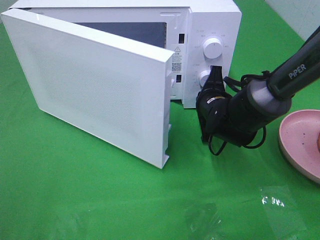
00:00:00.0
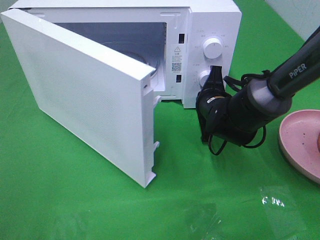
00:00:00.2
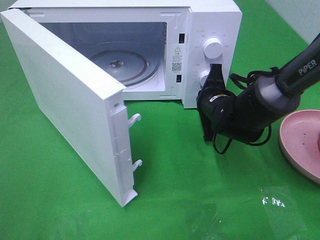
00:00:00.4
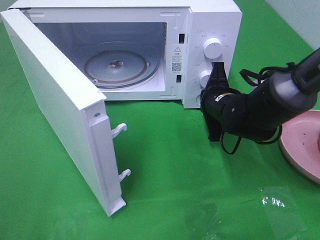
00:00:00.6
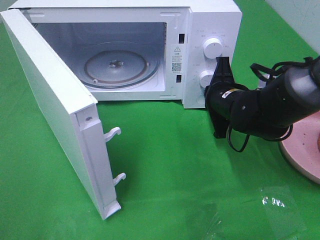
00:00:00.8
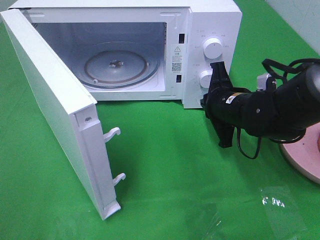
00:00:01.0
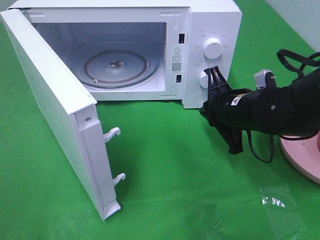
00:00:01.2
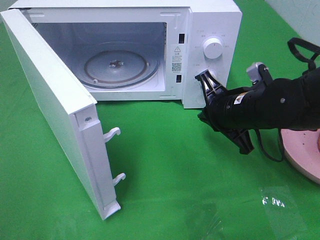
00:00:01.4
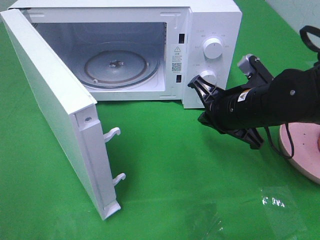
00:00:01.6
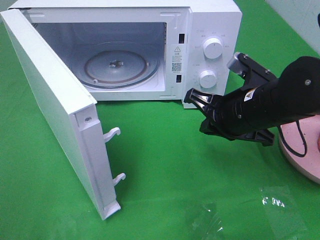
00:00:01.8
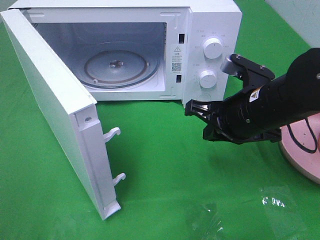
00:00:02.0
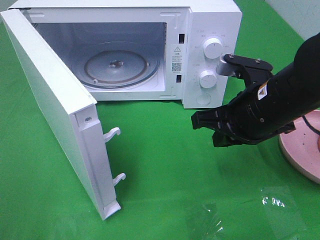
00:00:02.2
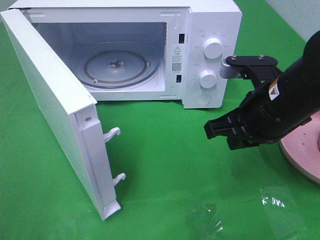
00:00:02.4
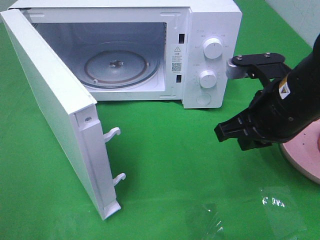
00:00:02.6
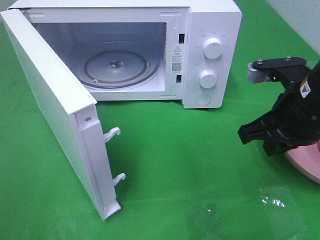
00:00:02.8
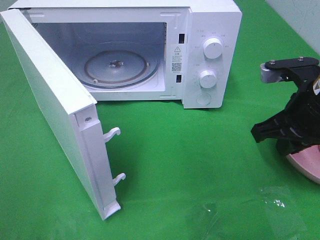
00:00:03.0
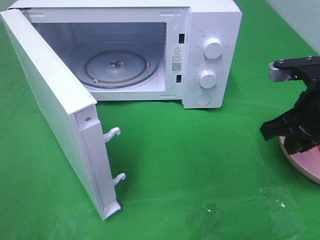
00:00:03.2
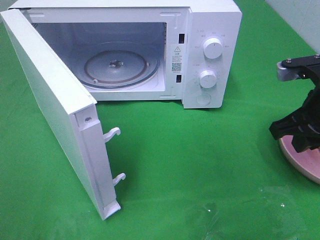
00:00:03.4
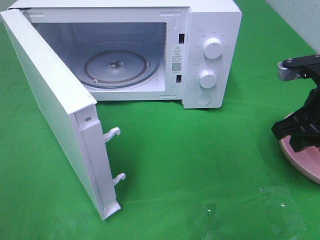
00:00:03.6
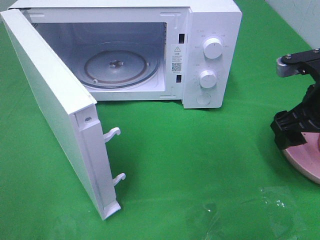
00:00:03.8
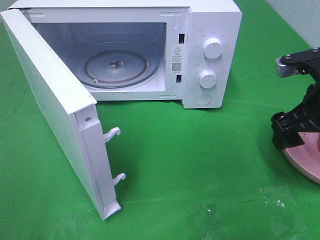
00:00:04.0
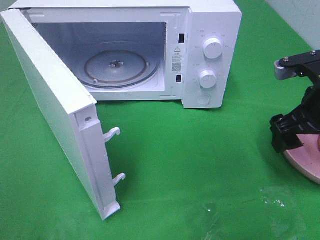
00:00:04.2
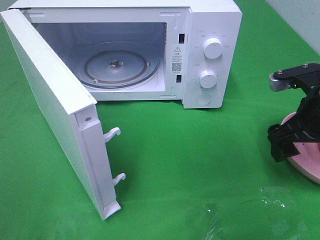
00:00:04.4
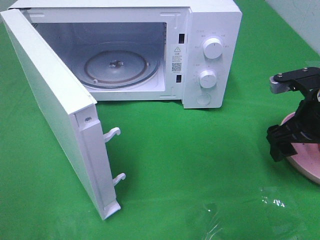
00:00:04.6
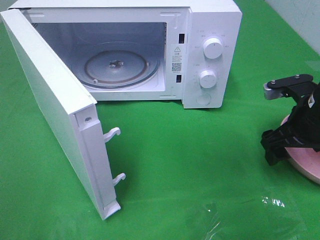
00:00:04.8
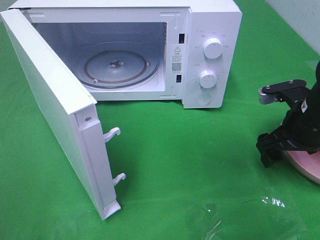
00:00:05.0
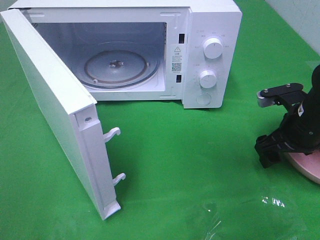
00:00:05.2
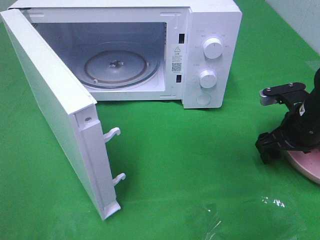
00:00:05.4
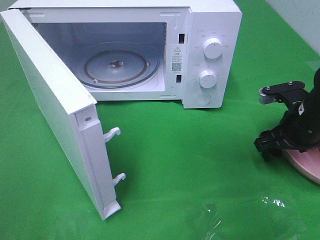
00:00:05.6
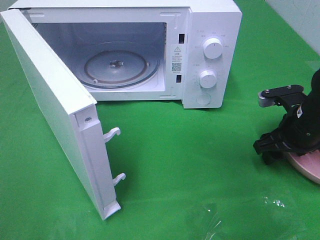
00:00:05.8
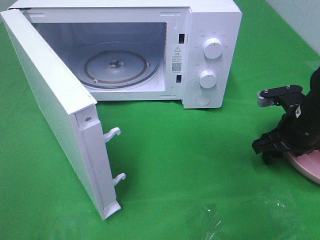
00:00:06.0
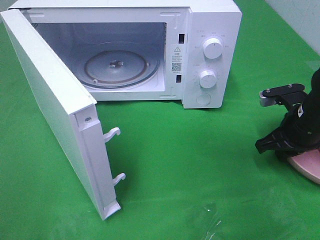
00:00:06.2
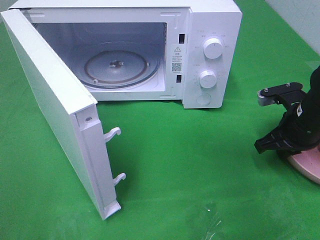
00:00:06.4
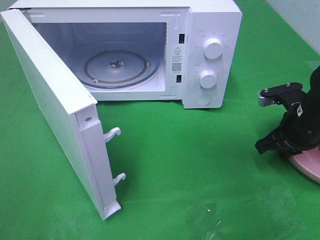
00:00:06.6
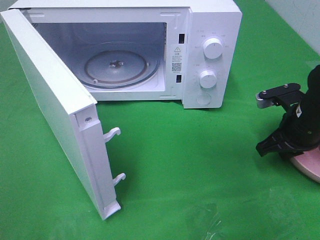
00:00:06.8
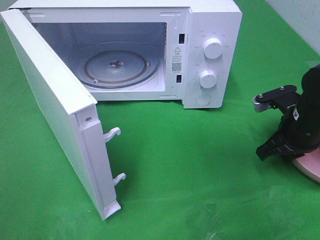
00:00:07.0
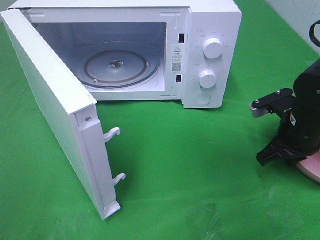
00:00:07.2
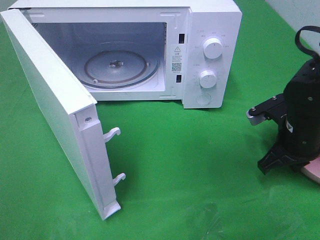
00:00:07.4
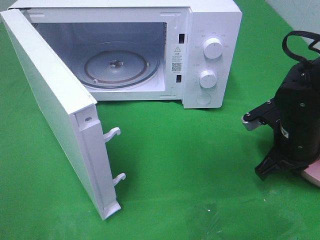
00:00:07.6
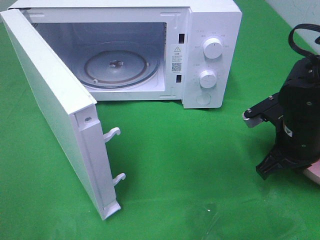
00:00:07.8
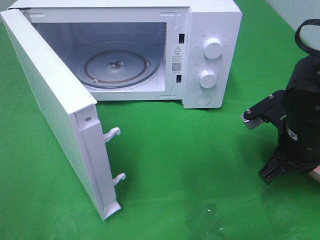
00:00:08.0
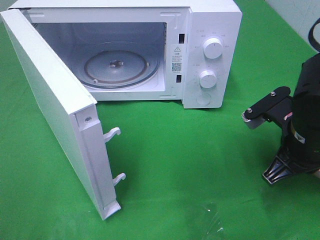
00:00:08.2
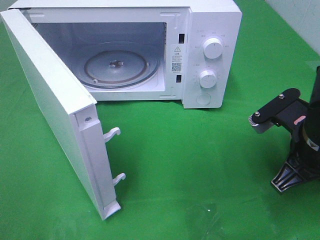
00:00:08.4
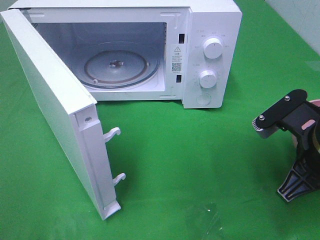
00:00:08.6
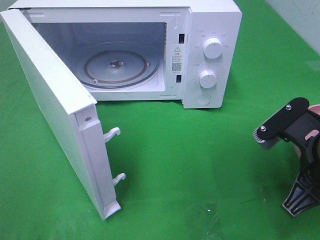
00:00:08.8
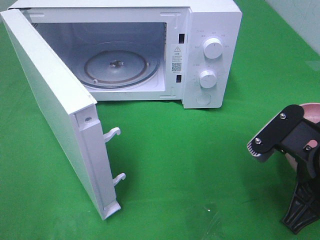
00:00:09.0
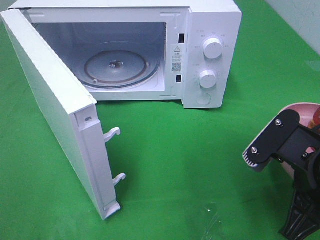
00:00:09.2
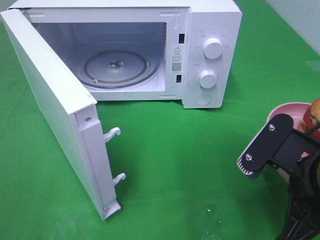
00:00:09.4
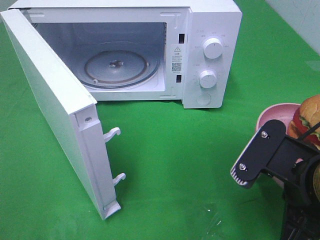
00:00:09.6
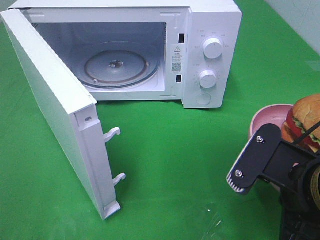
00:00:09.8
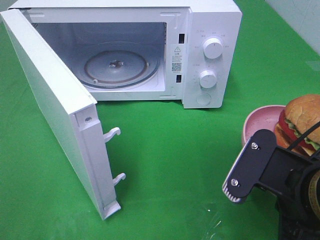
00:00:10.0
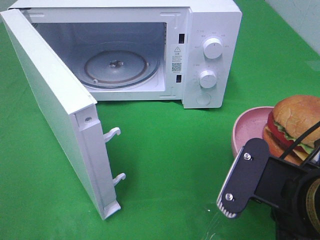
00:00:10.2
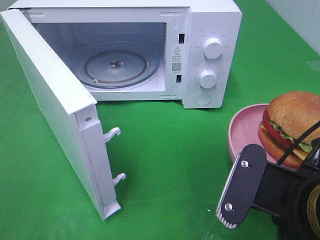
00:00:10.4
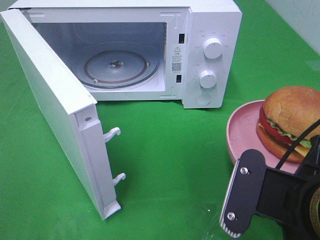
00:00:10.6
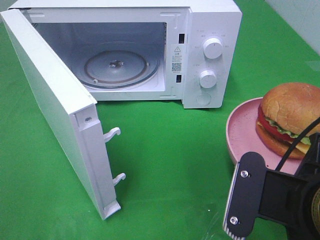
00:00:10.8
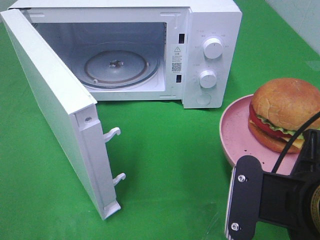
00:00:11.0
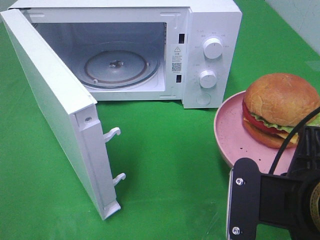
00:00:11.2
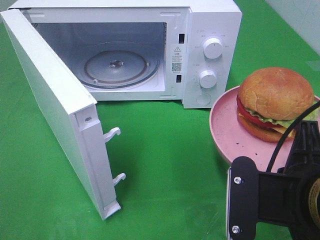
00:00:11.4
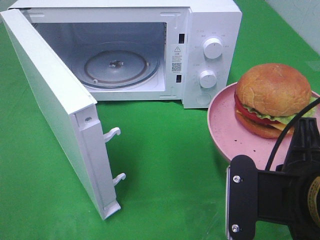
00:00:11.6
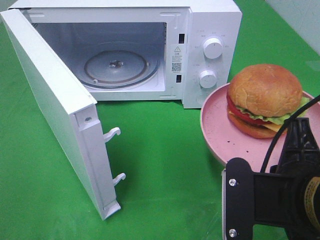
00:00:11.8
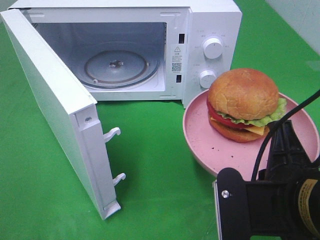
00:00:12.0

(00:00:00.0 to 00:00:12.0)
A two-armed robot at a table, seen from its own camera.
Task of the whole recording: Heat the burger.
Step, 00:00:01.4 - 00:00:06.6: Right hand: grab the plate with the hamburger.
00:00:00.0 - 00:00:01.6: The right gripper is displaced backward and upward by roughly 10 cm.
00:00:01.6 - 00:00:03.0: The right gripper heads to the right and upward, covering approximately 10 cm.
00:00:03.0 - 00:00:04.4: The right gripper opens its fingers.
00:00:04.4 - 00:00:06.0: The right gripper shifts roughly 5 cm downward.
00:00:06.0 - 00:00:07.6: The right gripper closes its fingers.
00:00:07.6 - 00:00:09.0: The right gripper travels backward and upward by roughly 15 cm.
00:00:09.0 - 00:00:10.4: The right gripper heads backward, covering some 5 cm.

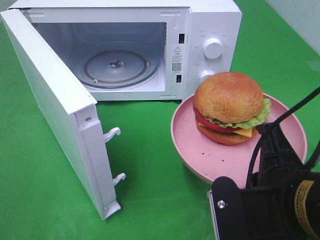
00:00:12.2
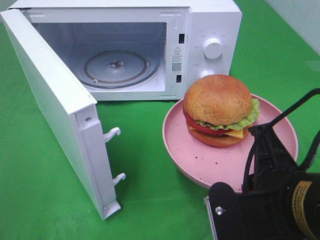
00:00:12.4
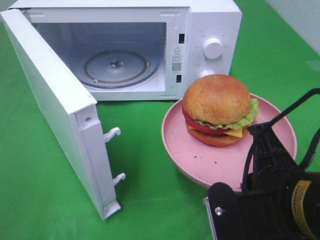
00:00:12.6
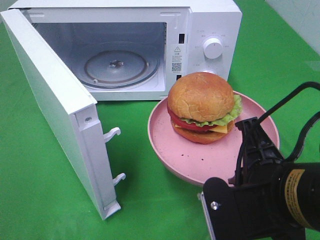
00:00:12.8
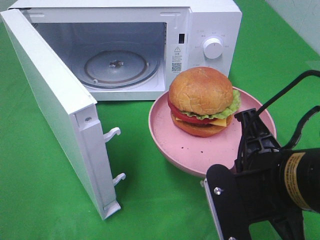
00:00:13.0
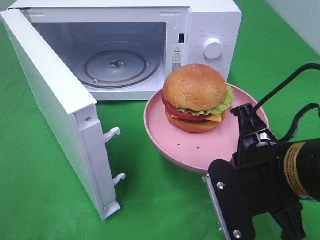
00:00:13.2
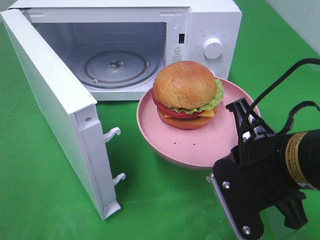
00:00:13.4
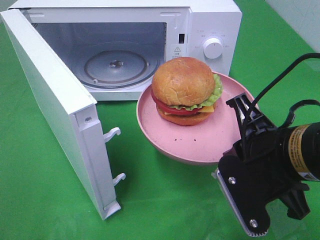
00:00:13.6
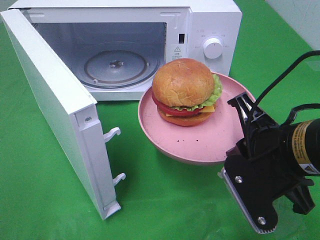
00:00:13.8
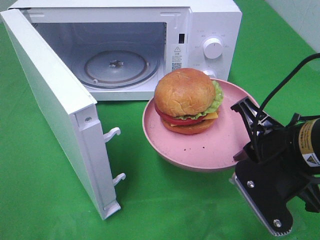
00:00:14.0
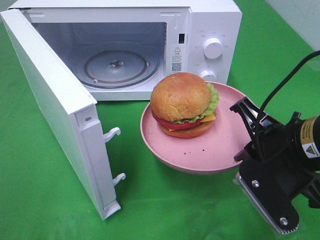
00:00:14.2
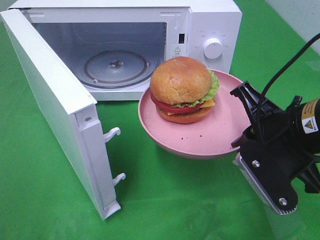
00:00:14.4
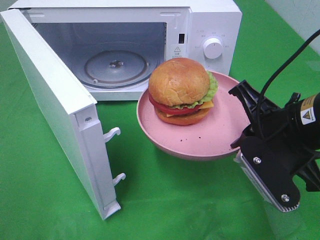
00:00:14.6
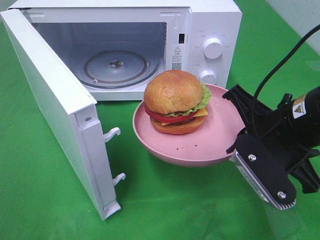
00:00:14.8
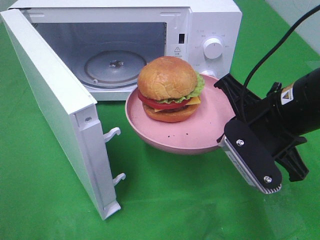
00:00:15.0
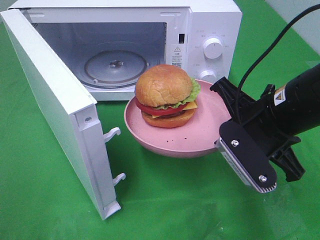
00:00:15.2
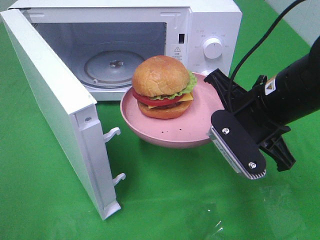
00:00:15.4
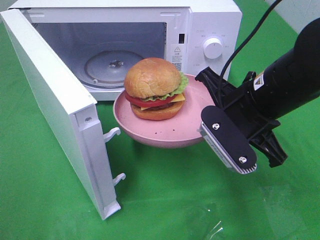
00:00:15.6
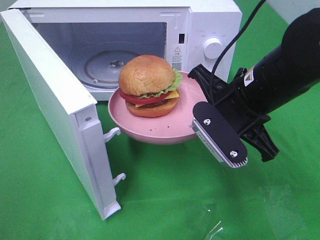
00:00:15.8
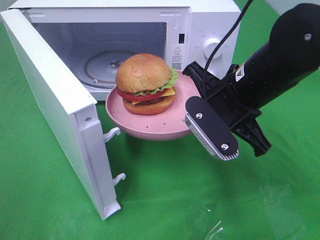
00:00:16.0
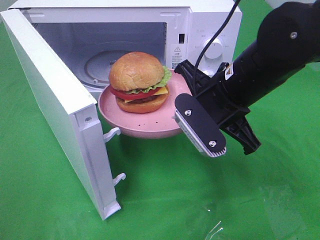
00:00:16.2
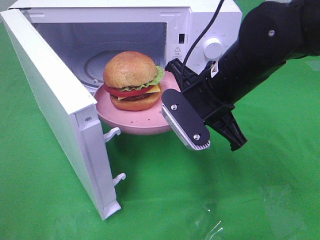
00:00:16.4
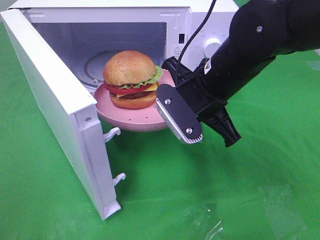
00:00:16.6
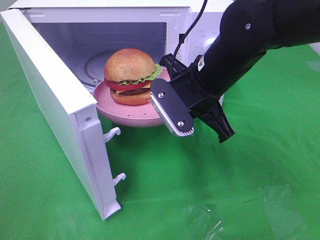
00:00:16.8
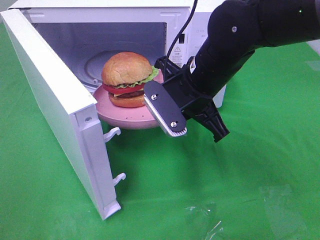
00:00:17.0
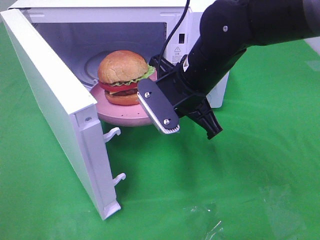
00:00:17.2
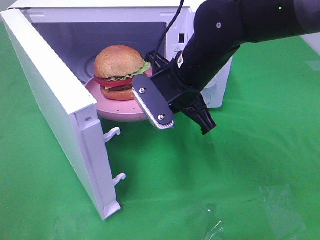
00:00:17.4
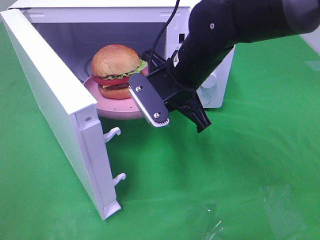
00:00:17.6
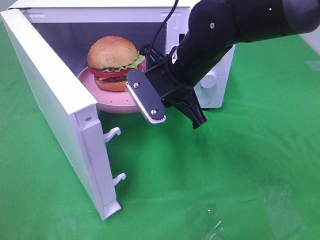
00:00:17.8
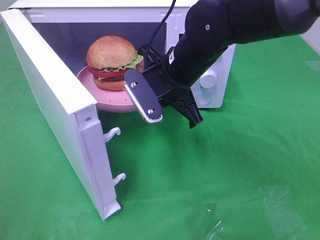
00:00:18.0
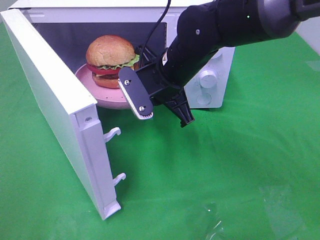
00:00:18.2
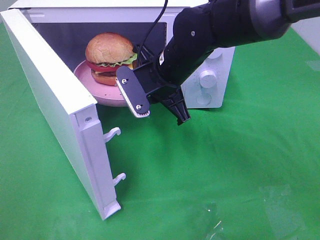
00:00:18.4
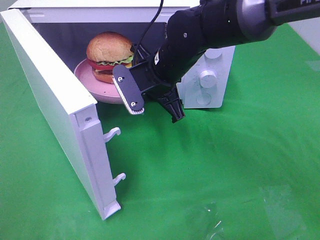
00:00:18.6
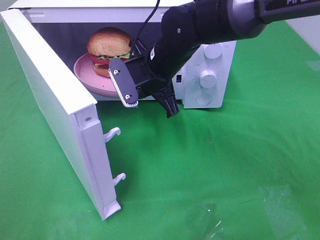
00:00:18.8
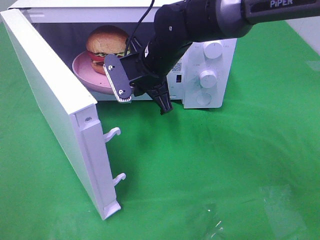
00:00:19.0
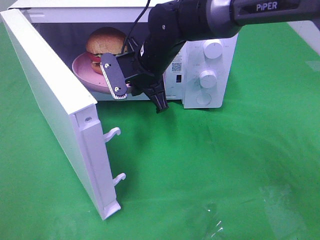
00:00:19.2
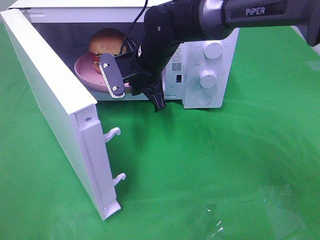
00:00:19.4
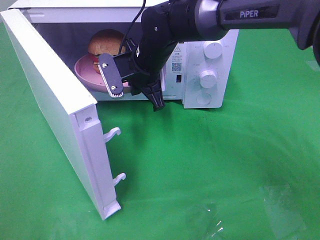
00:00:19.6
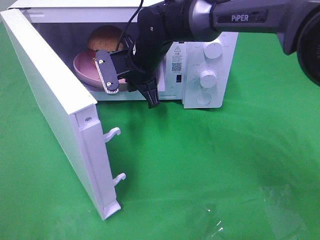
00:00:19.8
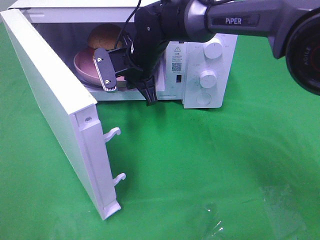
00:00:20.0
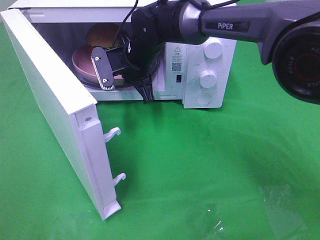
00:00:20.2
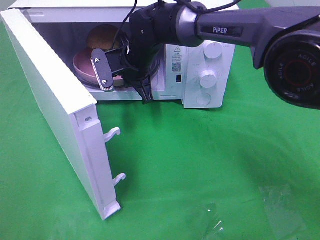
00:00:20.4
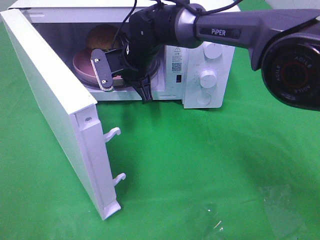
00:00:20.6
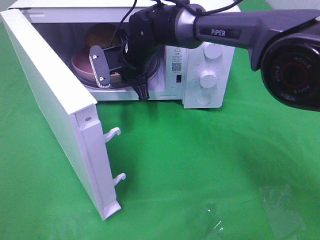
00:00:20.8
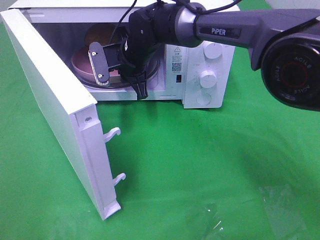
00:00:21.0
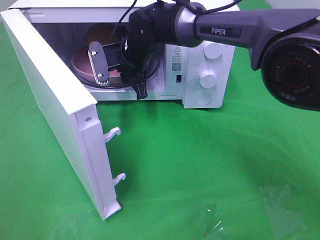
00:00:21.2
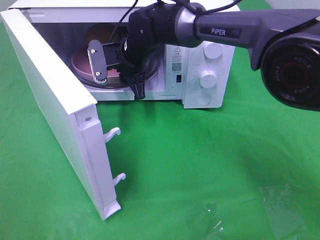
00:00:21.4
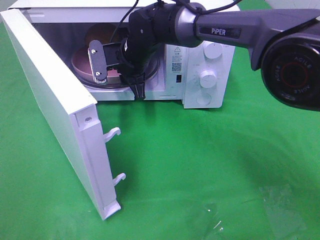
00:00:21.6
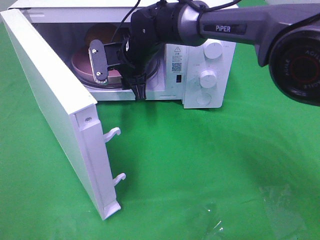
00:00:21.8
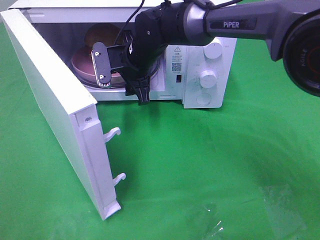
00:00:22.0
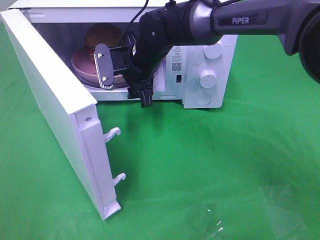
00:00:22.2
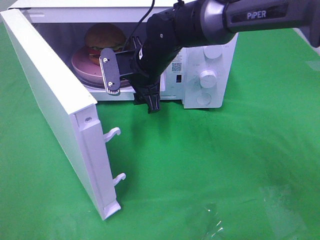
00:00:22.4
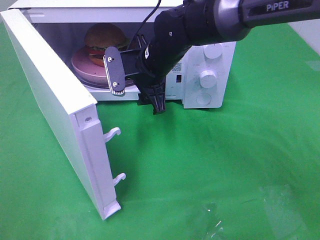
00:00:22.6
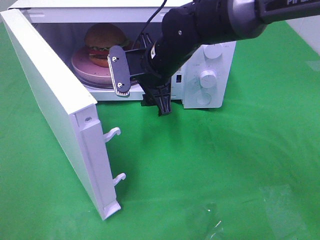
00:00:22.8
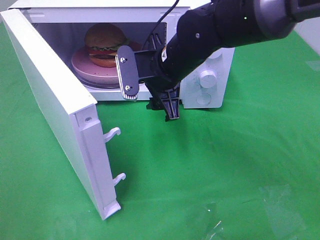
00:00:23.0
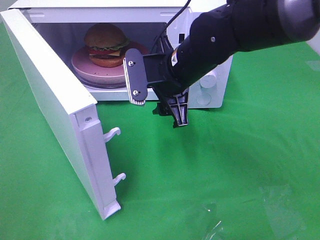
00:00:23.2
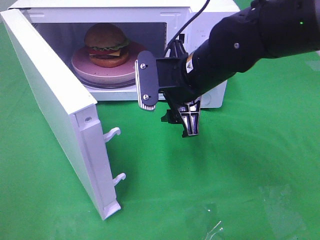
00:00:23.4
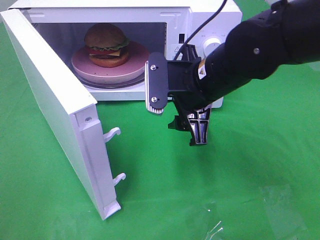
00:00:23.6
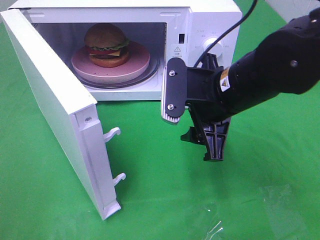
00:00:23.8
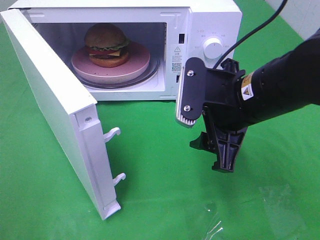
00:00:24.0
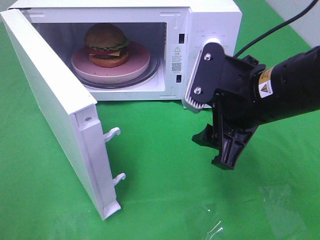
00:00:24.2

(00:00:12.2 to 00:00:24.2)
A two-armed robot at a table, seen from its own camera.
Task of the whole recording: Heat the burger.
Step, 00:00:12.2 - 00:00:22.0: Right hand: place the plate in the microwave.
00:00:12.2 - 00:00:13.8: The right gripper moves forward, some 5 cm.
00:00:13.8 - 00:00:15.2: The right gripper moves forward, about 5 cm.
00:00:15.2 - 00:00:16.6: The right gripper is displaced to the left and forward by about 10 cm.
00:00:16.6 - 00:00:18.2: The right gripper is displaced forward and to the left by some 5 cm.
00:00:18.2 - 00:00:19.8: The right gripper travels forward and to the left by about 10 cm.
00:00:19.8 - 00:00:21.2: There are only small adjustments of the grippers.
00:00:21.2 - 00:00:22.6: The right gripper moves backward, roughly 5 cm, and opens up.
00:00:22.6 - 00:00:24.2: The right gripper heads backward and to the right, covering approximately 20 cm.
